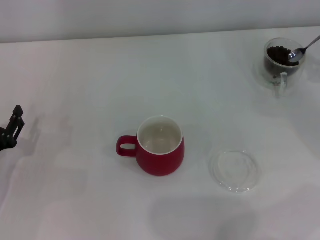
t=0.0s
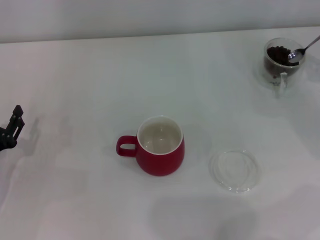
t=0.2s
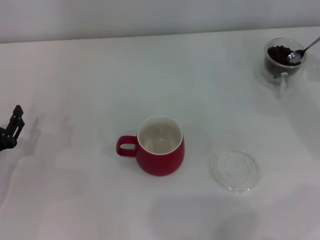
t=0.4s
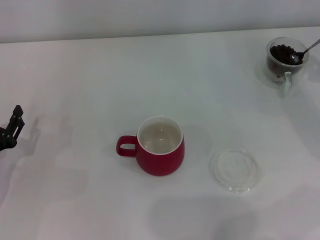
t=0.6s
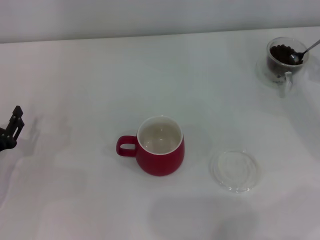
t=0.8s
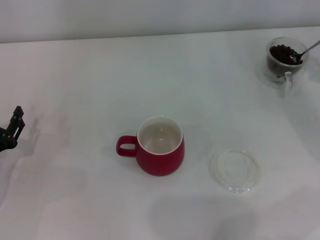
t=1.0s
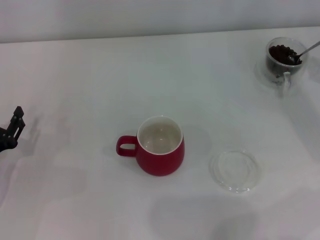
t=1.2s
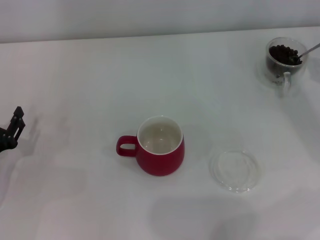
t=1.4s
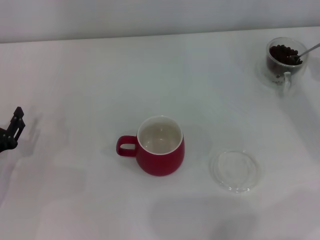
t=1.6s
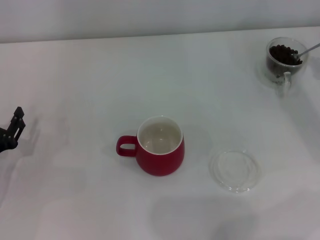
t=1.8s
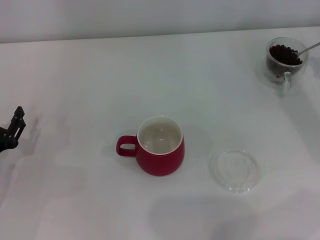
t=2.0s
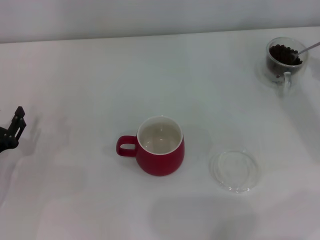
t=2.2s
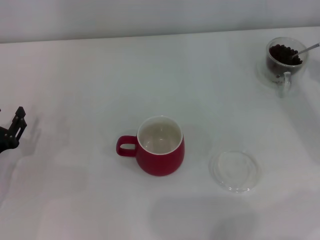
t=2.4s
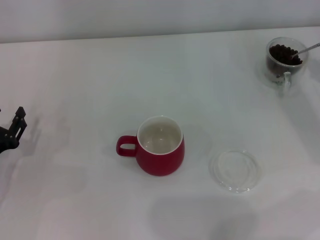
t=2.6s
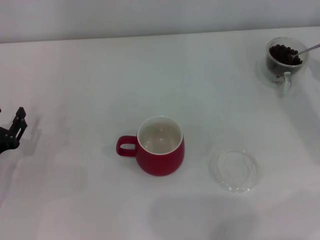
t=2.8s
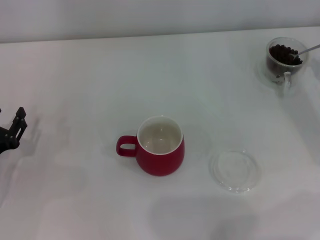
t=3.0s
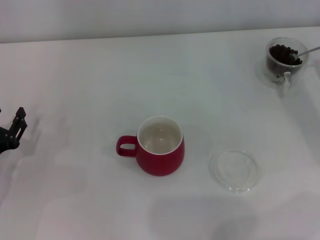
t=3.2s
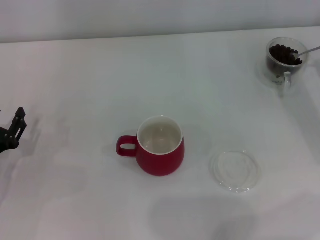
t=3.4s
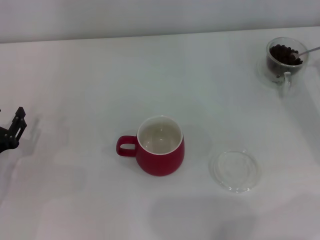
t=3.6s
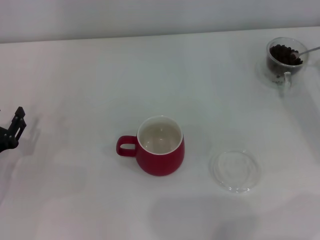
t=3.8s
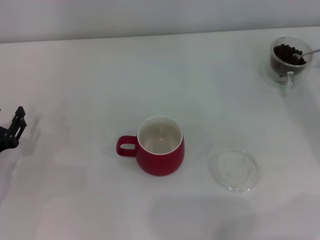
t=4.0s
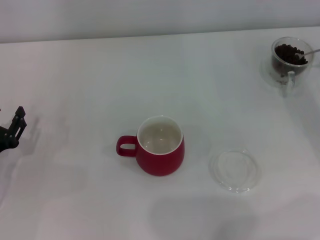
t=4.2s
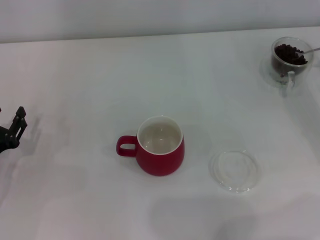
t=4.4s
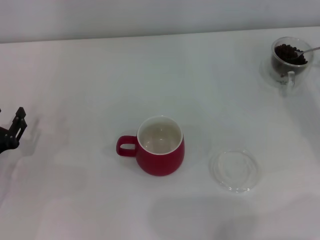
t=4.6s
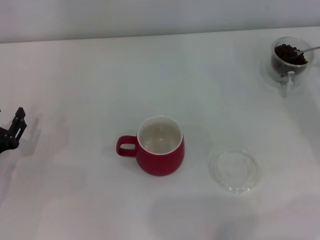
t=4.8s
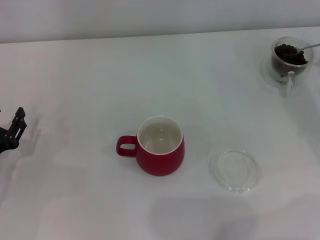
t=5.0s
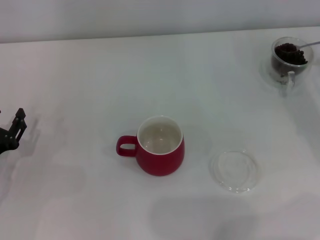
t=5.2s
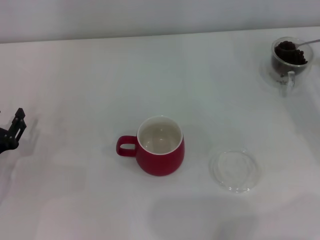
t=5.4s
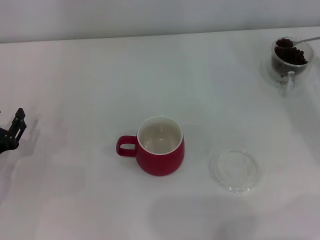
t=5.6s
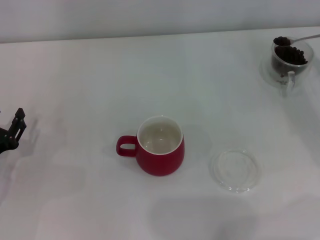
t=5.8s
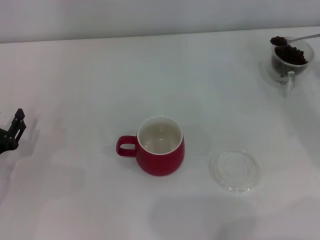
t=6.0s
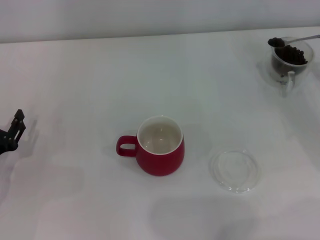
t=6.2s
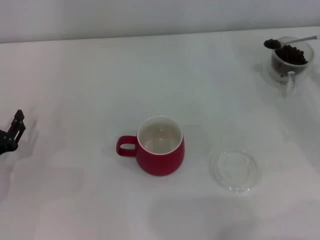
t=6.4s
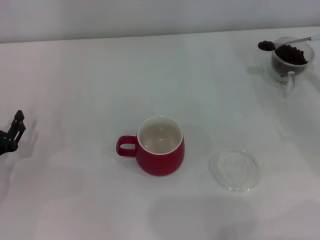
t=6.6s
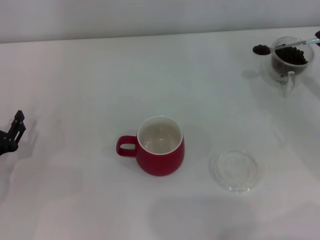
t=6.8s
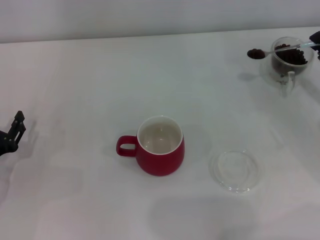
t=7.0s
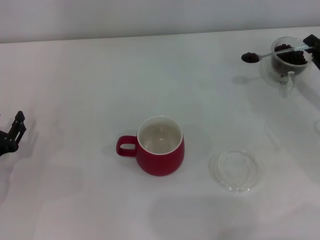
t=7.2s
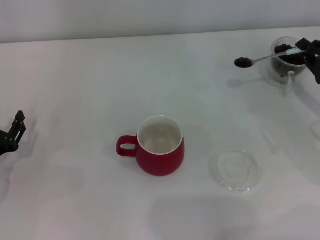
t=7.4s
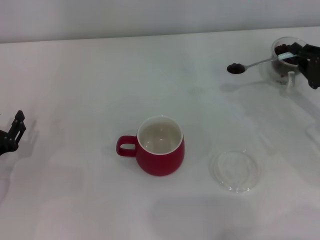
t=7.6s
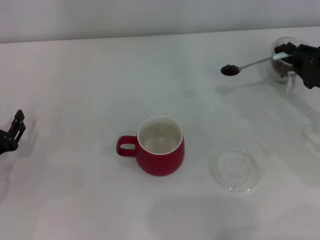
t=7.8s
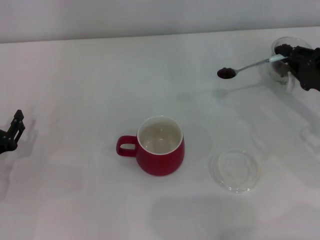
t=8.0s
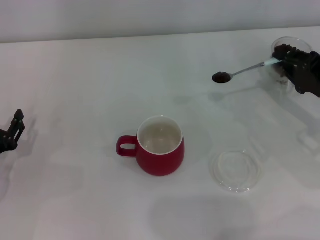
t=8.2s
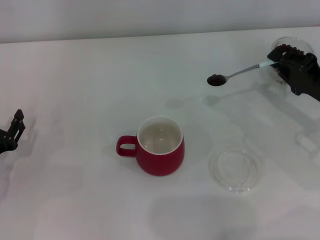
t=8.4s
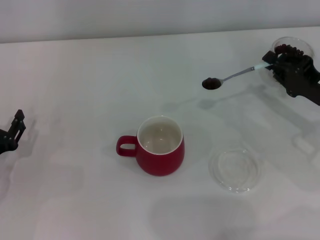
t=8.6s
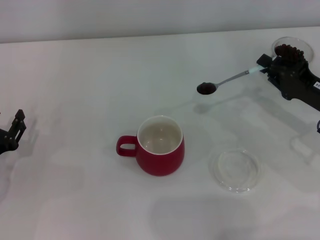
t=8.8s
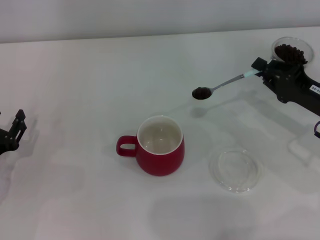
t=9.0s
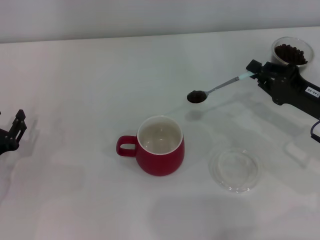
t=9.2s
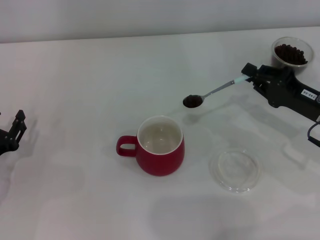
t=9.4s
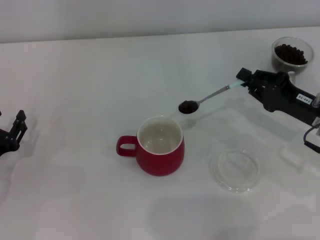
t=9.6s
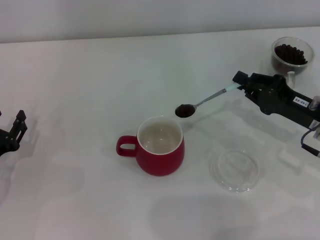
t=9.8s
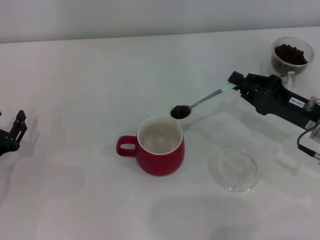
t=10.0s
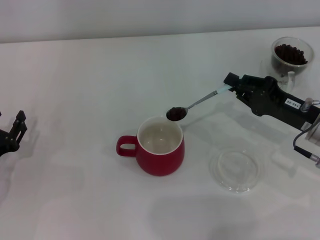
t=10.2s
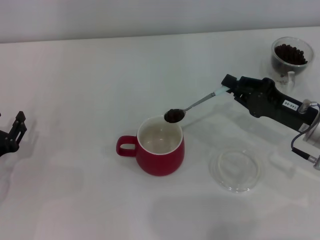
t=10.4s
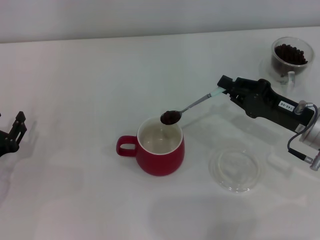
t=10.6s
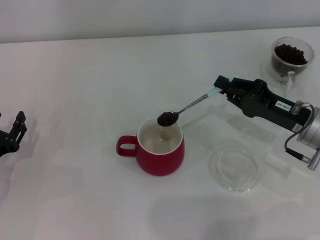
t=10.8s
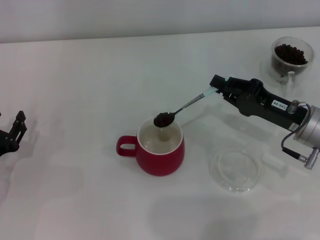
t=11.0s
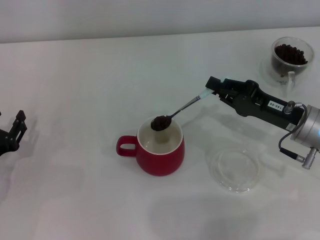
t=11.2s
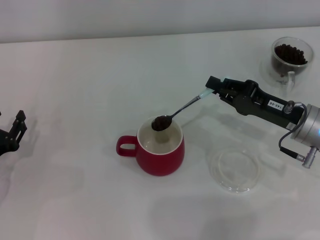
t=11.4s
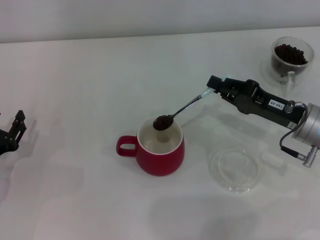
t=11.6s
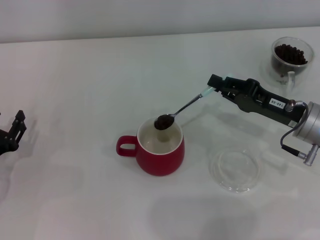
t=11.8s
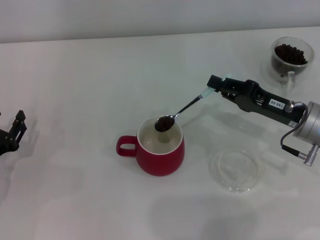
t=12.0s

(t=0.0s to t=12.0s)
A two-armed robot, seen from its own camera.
Task of the whole recording: Use a blue spoon to take out the coffee beans from the glass and pour them into the red cup.
t=3.0s - t=4.4s: There are only small adjustments of the grippers.
t=6.0s - t=7.6s: The right gripper goes about 5 cm to the left.
t=7.6s - t=9.0s: The grippers move only a little.
t=9.0s - t=12.0s: The grippers make only small movements.

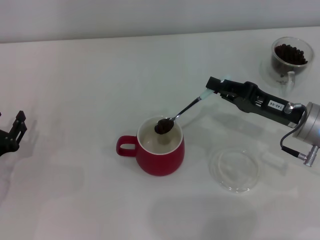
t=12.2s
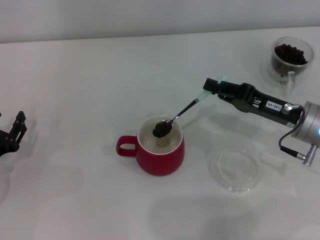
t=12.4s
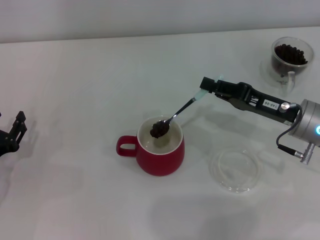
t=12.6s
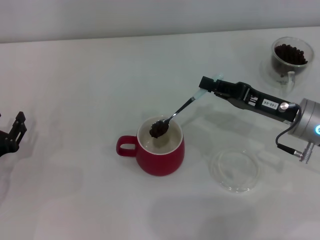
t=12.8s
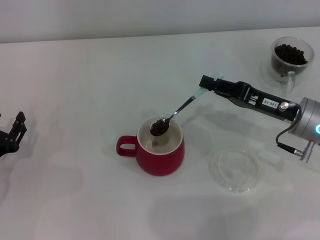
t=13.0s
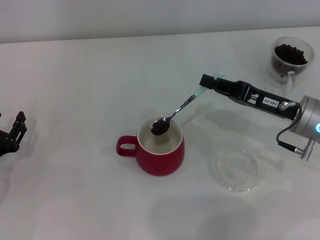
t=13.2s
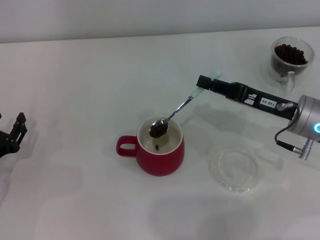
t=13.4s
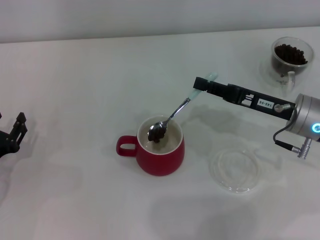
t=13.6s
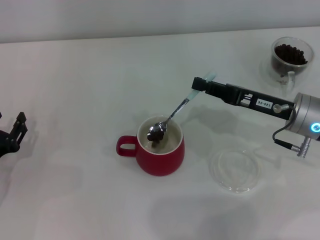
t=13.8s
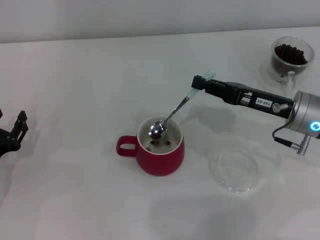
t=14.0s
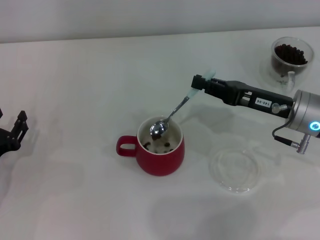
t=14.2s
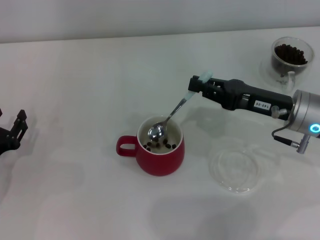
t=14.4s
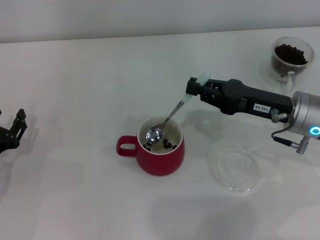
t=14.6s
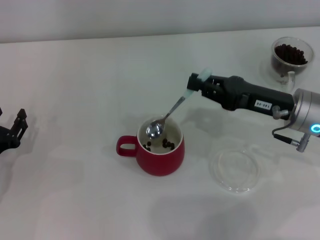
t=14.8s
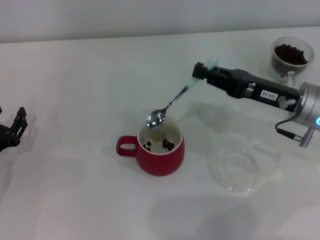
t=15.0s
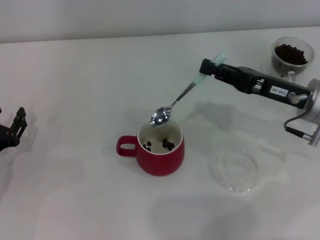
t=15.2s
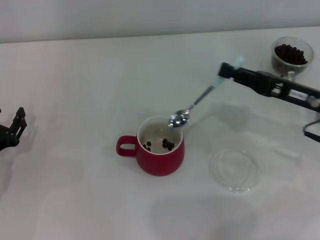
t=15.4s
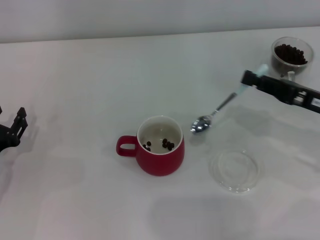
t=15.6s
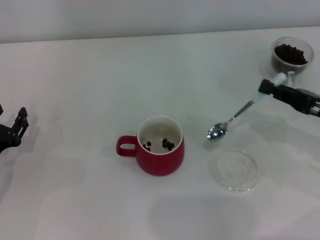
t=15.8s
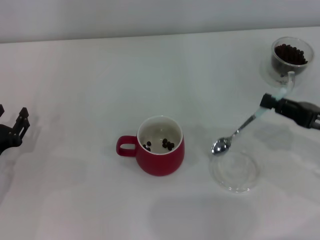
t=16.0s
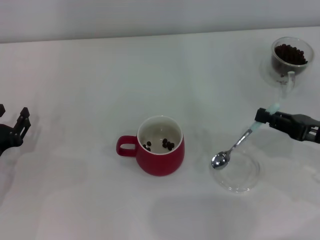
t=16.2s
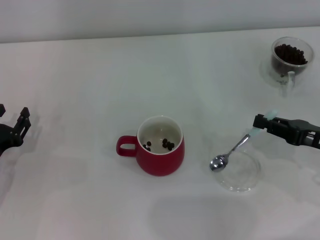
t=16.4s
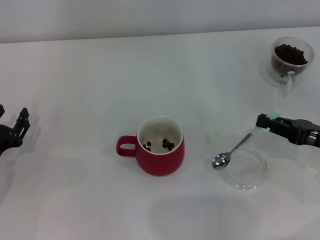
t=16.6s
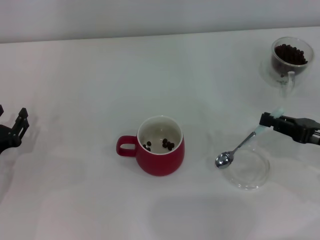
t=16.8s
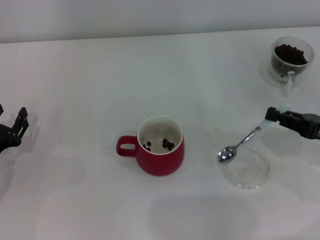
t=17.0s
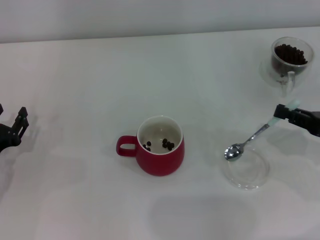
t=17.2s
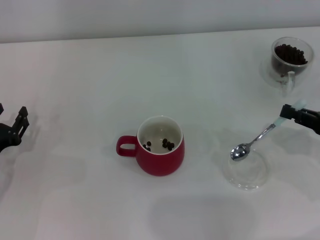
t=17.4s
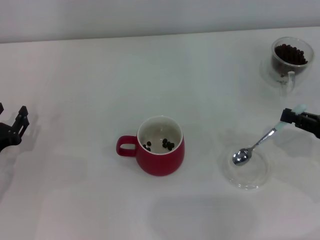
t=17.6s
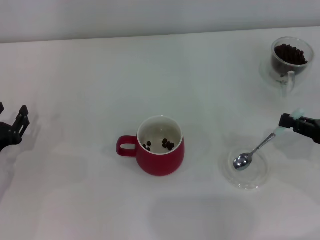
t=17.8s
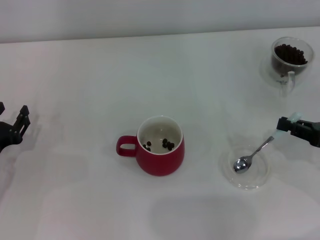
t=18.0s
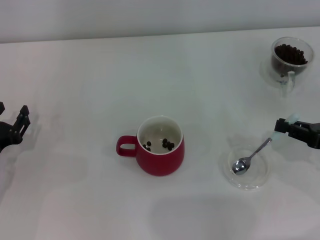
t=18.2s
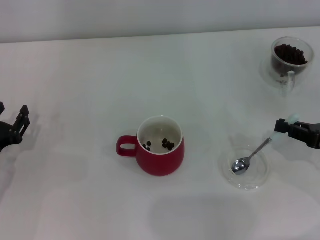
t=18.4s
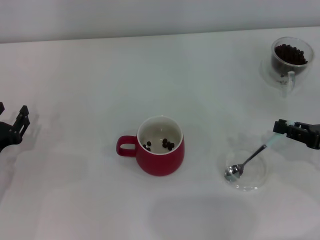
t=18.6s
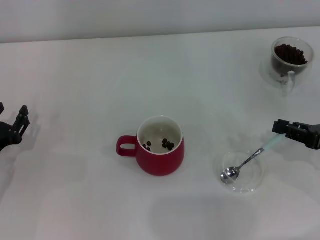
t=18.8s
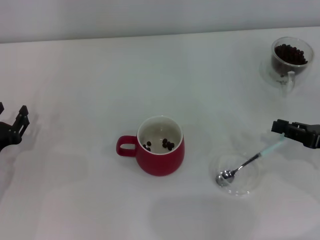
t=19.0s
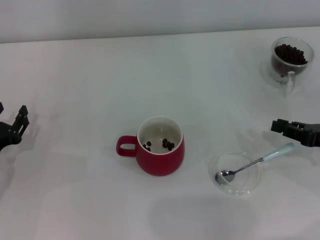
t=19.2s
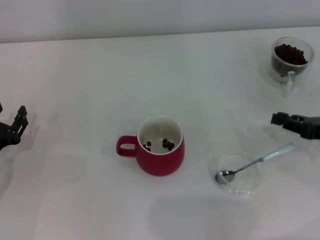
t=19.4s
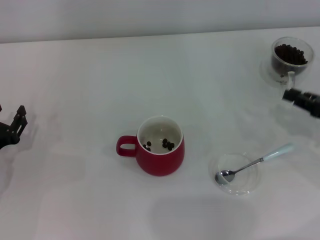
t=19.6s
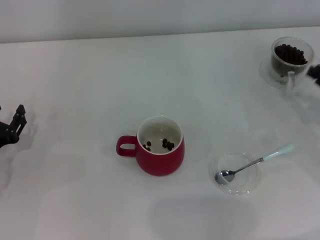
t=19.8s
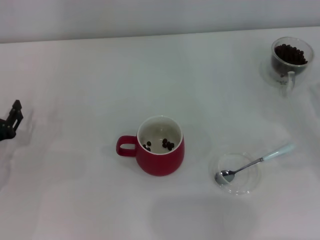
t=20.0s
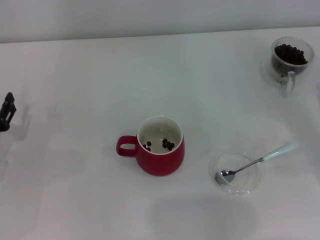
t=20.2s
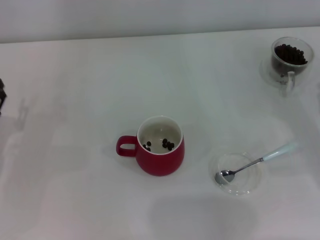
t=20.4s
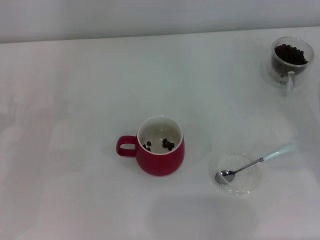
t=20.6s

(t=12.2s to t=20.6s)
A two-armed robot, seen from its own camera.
Task of the whole recording: Use a blue spoon to take out the coffee beans from the glass and pour them into the red cup.
Step, t=12.2s - t=14.8s: Scoop a spoonful of beans into the cup with the right gripper.
Step, t=15.0s - t=19.2s: Place the spoon back in its original place with the right gripper.
t=12.2s - t=13.6s: There are only small adjustments of the grippers.
t=13.6s - t=15.0s: There are only small adjustments of the grippers.
t=15.0s - t=16.4s: The right gripper shifts about 10 cm to the right and backward.
t=16.4s - t=19.2s: The grippers stay close to where they were, moving slightly.
